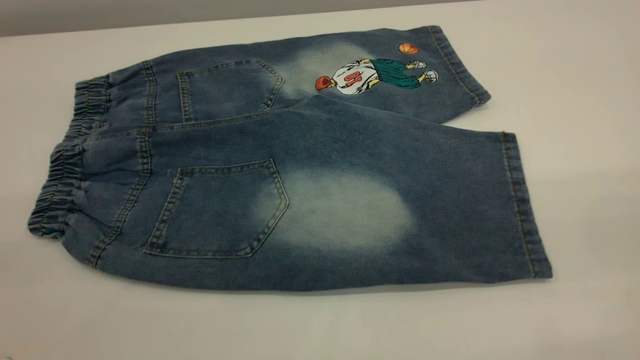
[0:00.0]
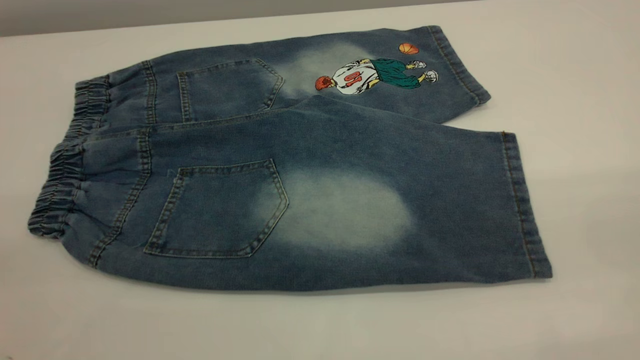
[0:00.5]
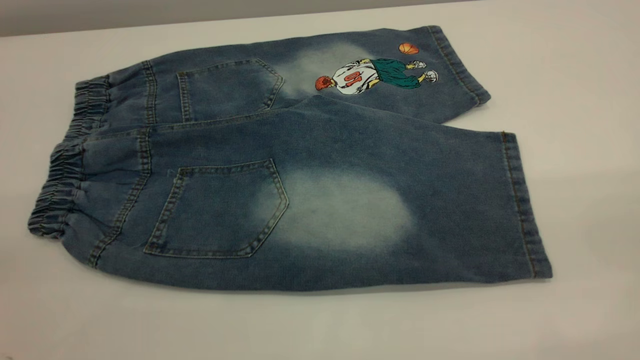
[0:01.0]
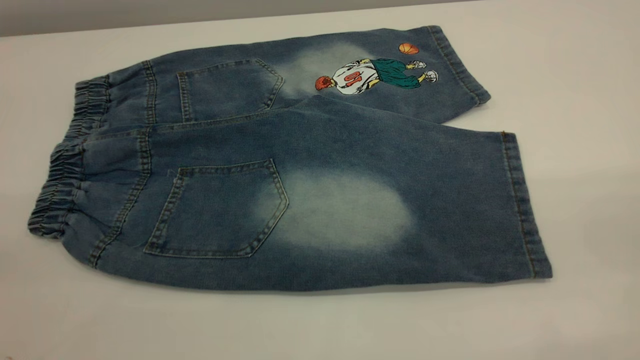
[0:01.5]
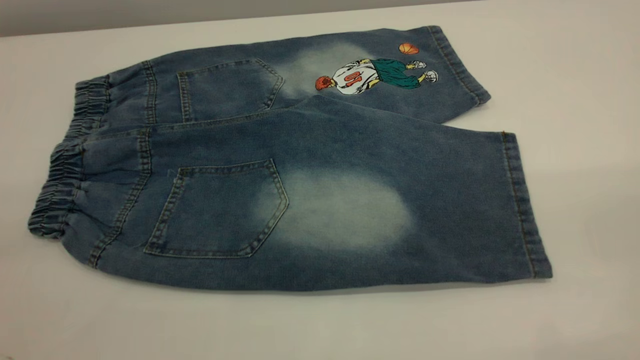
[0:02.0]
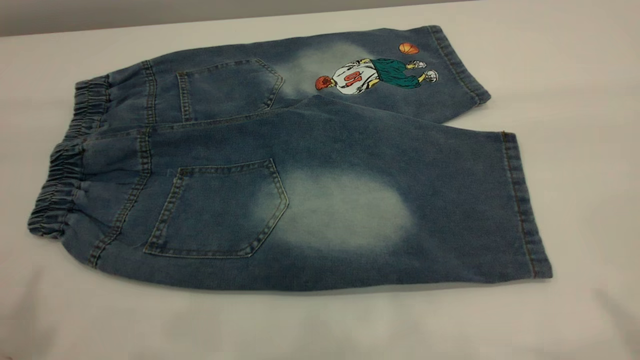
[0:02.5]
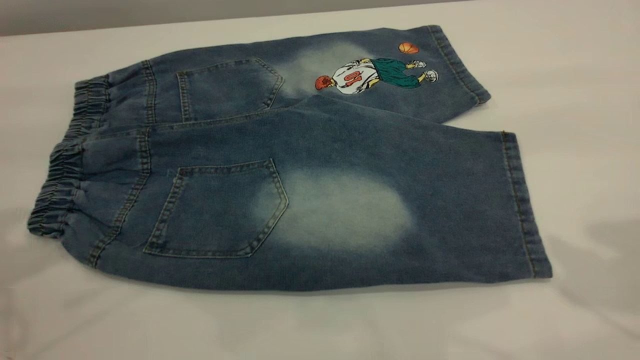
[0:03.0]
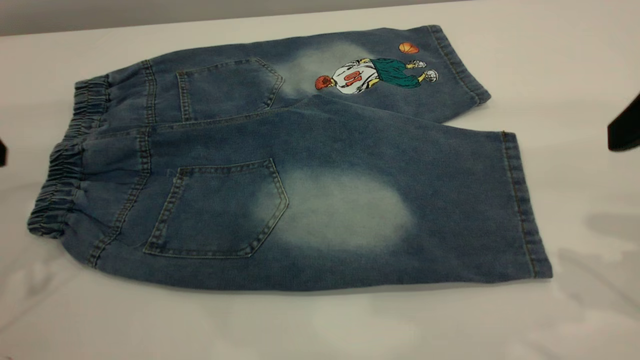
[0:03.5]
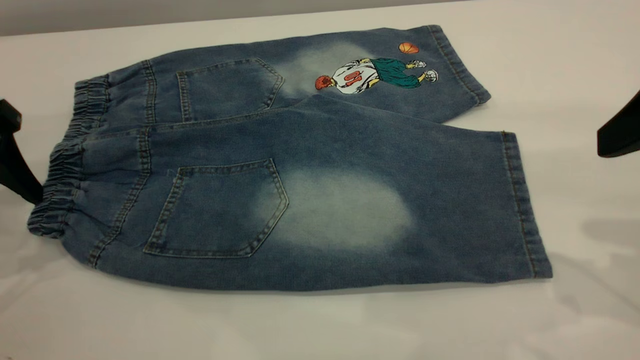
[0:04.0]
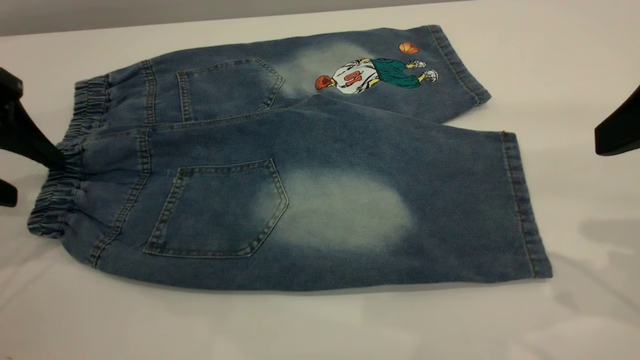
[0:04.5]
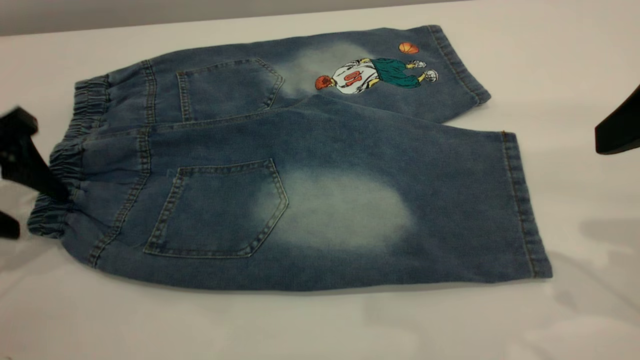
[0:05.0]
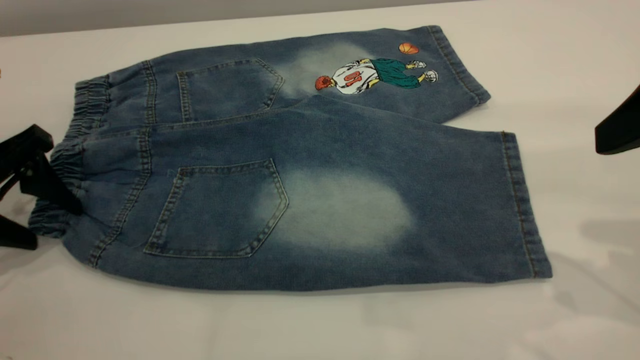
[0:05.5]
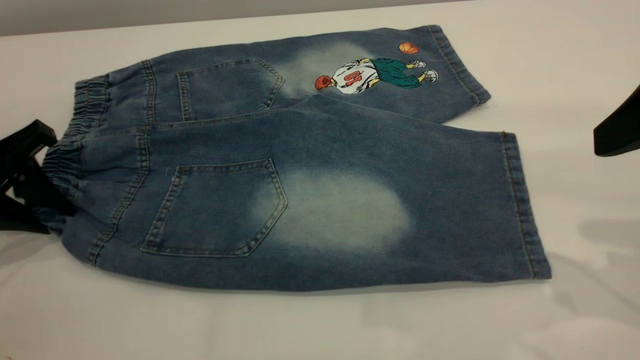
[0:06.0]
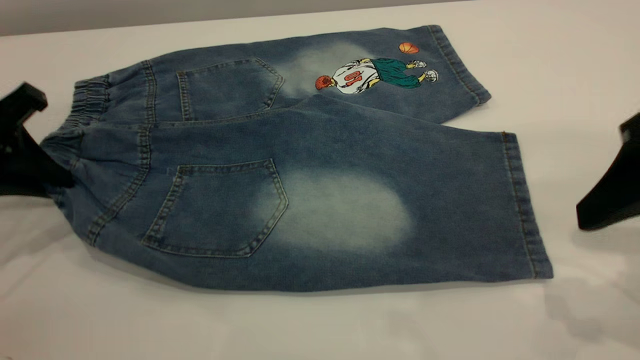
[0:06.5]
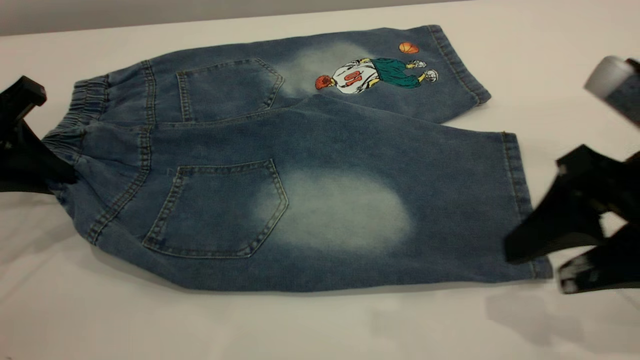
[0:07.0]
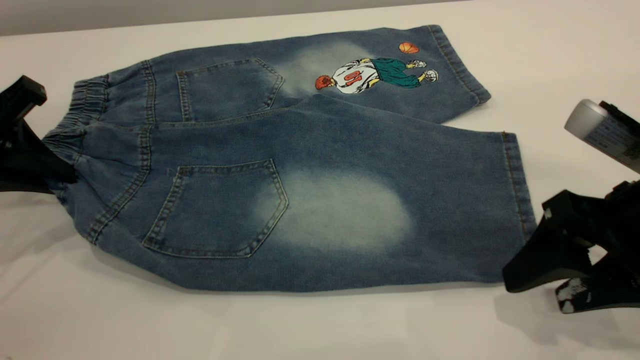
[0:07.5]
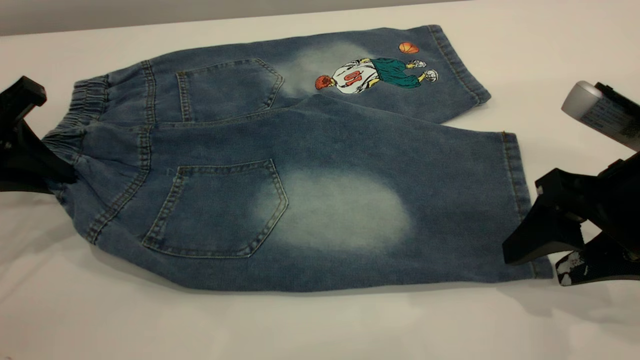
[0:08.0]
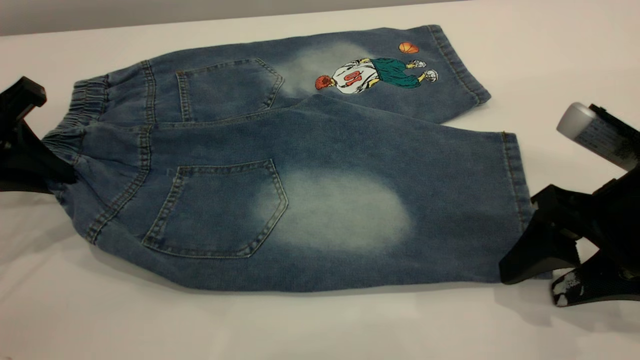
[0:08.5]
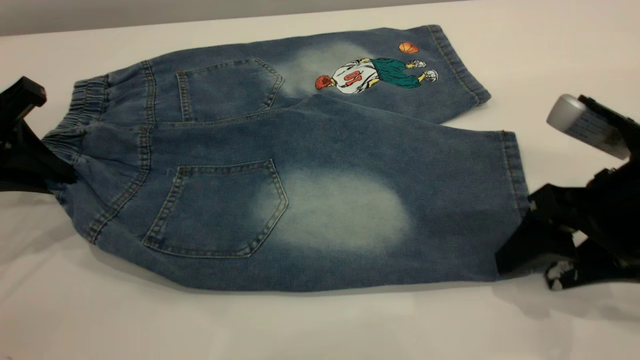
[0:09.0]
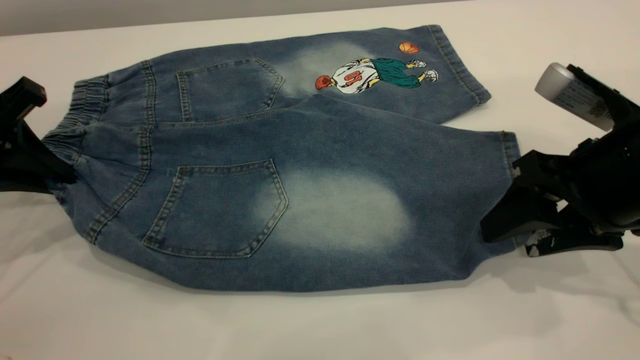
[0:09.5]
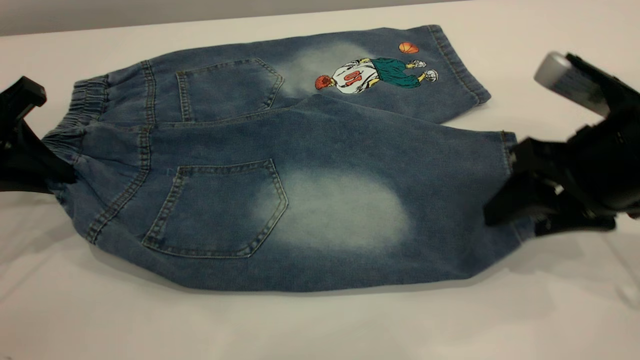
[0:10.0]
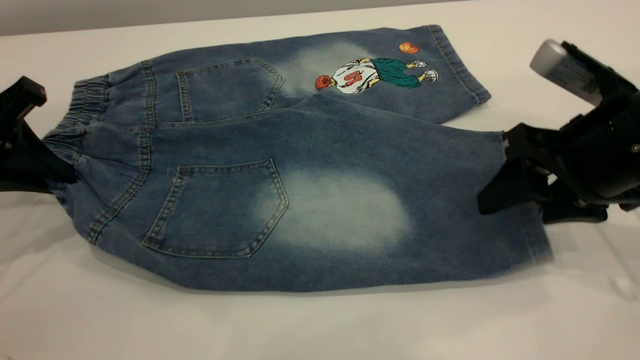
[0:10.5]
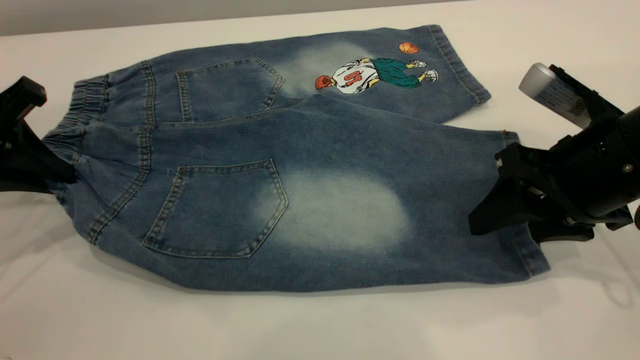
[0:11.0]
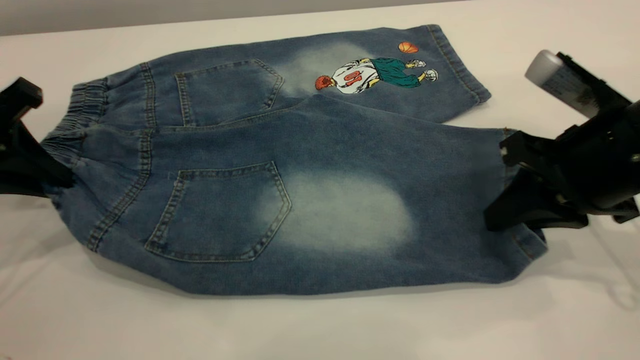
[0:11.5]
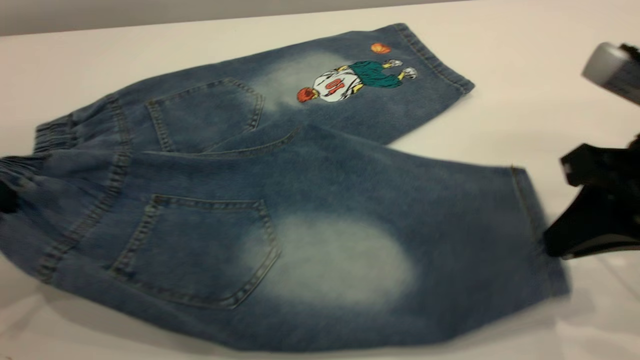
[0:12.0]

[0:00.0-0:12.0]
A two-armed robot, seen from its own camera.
0:02.0 to 0:04.0: Both grippers travel together forward and downward, approximately 30 cm.
0:04.0 to 0:06.0: The left gripper shifts some 5 cm downward, and closes its fingers.
0:06.0 to 0:08.0: The right gripper moves downward, some 10 cm.
0:08.0 to 0:10.0: The grippers move only a little.
0:10.0 to 0:12.0: The right gripper is displaced backward by roughly 5 cm, and closes up. The left gripper is displaced upward and backward by roughly 5 cm.

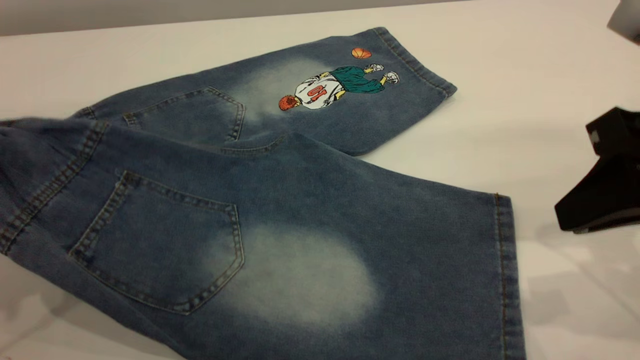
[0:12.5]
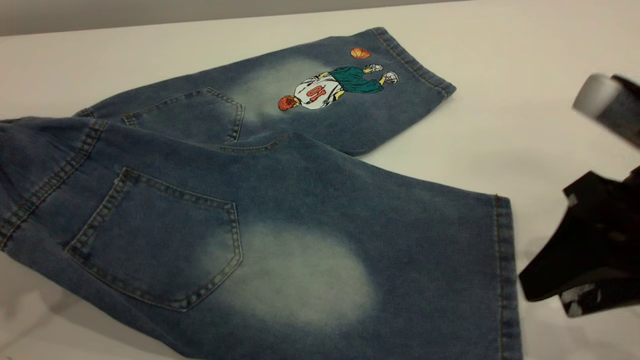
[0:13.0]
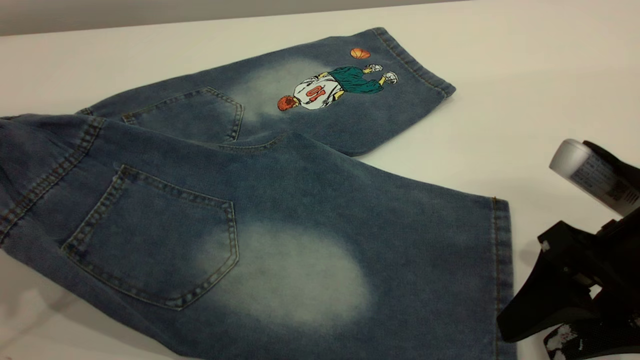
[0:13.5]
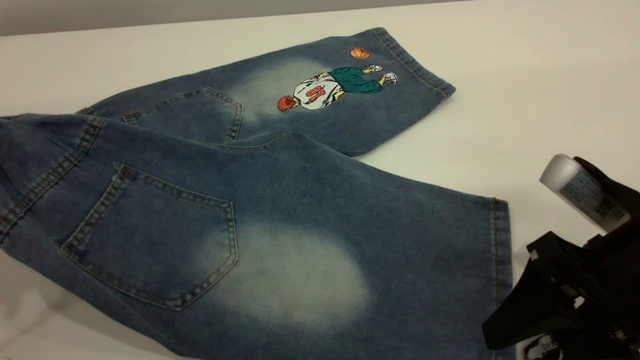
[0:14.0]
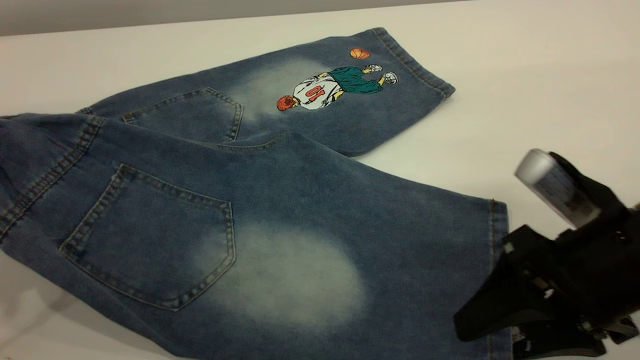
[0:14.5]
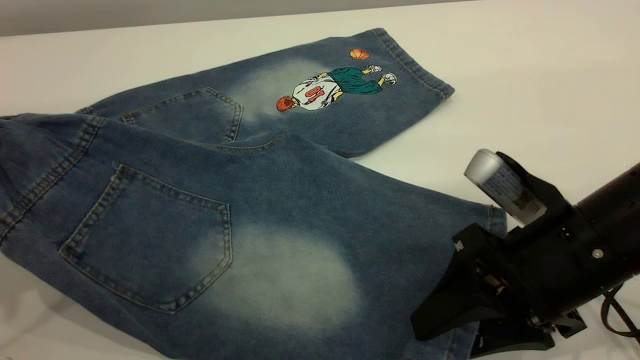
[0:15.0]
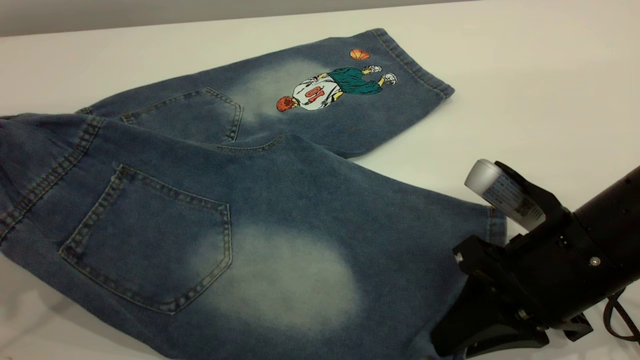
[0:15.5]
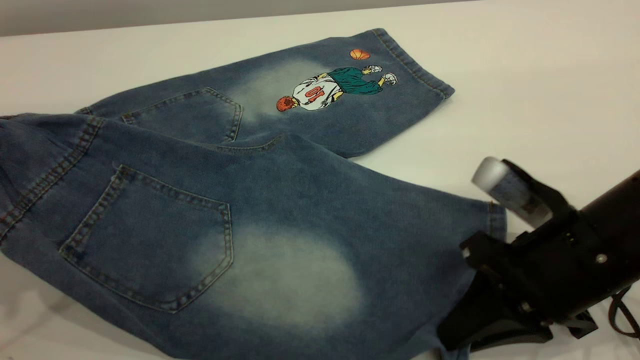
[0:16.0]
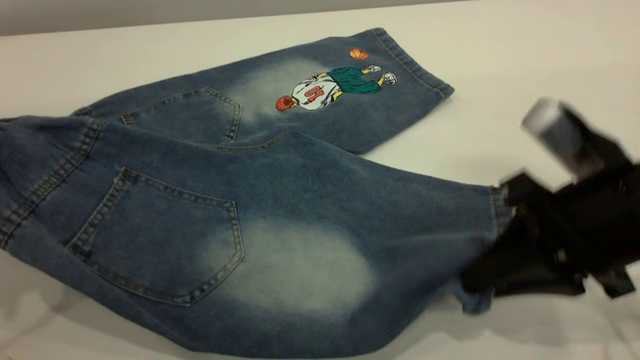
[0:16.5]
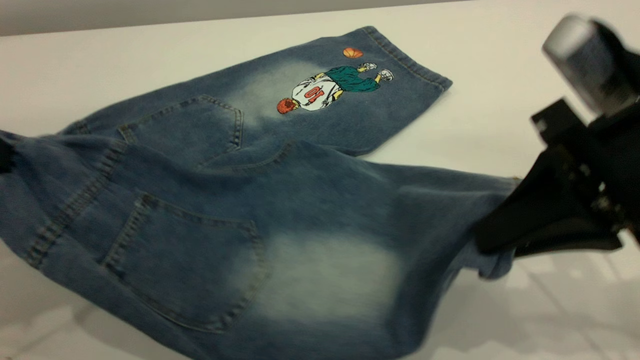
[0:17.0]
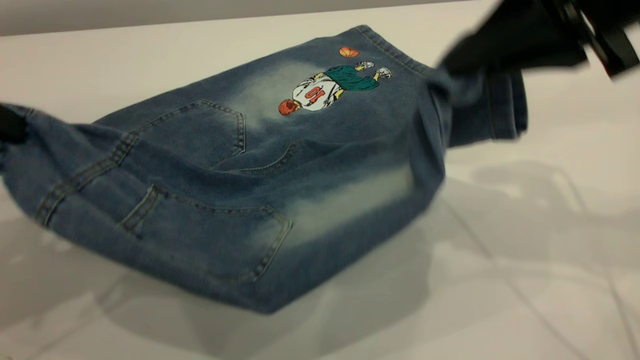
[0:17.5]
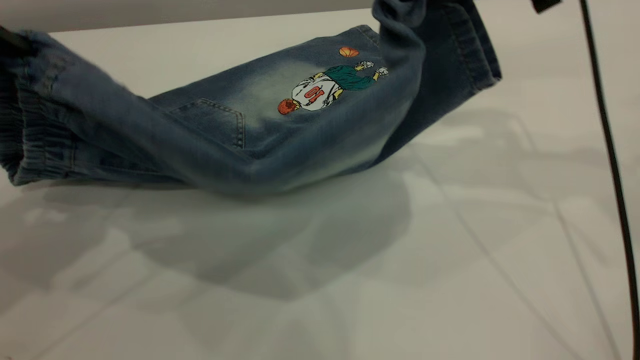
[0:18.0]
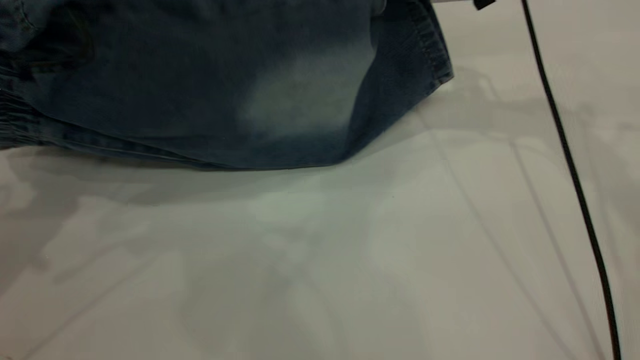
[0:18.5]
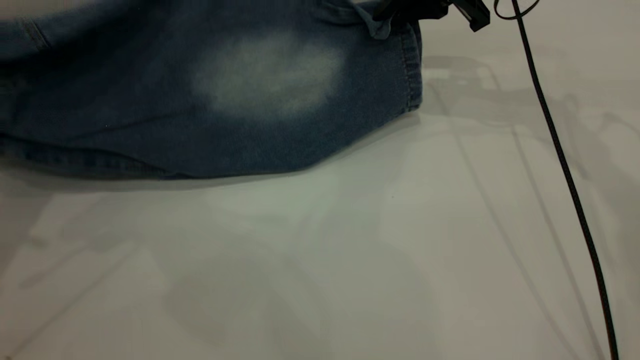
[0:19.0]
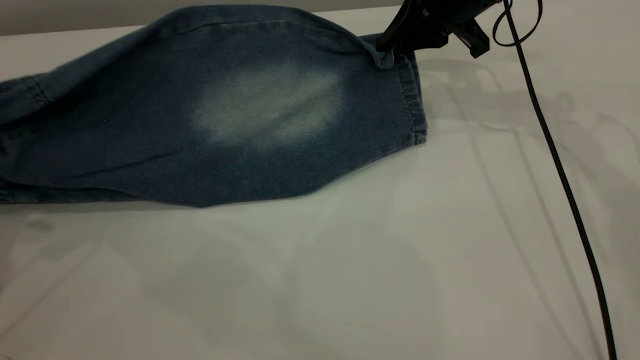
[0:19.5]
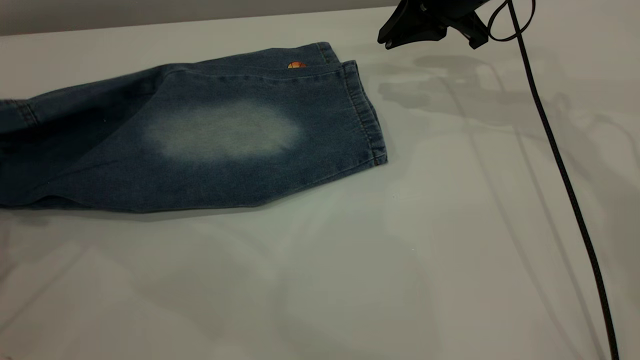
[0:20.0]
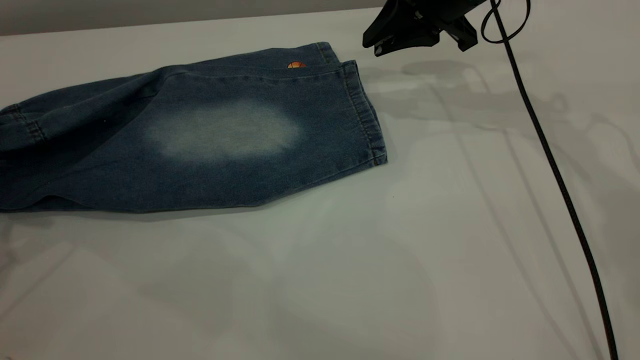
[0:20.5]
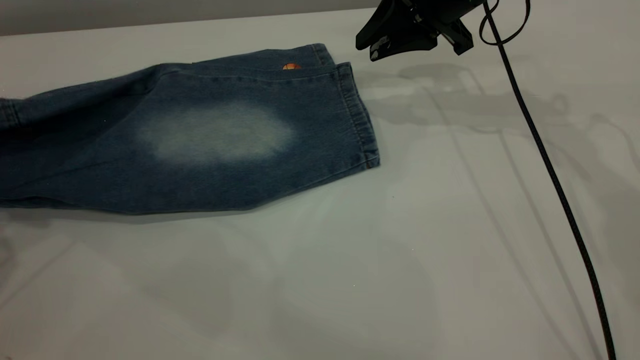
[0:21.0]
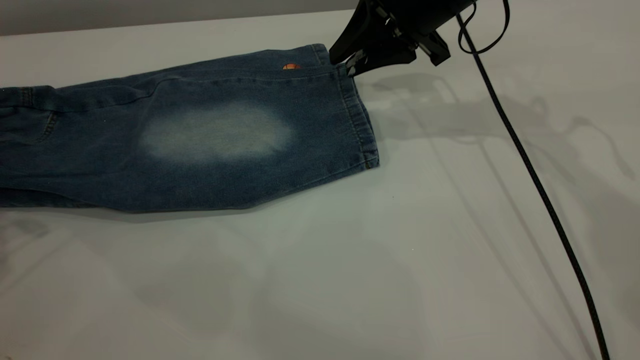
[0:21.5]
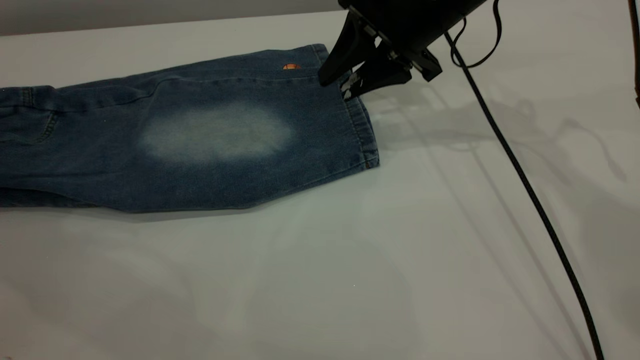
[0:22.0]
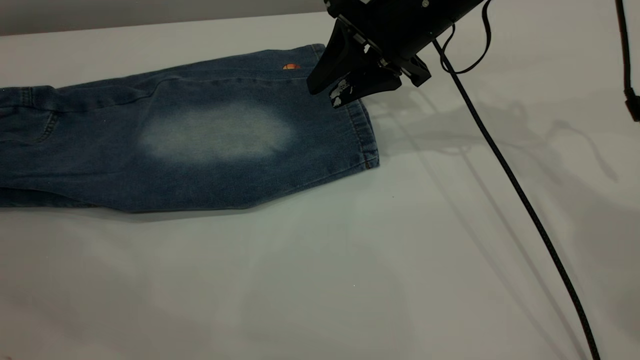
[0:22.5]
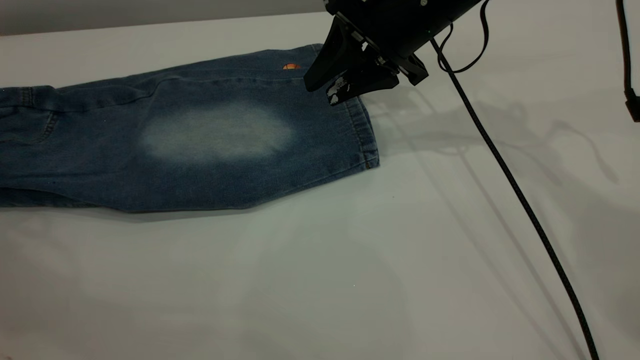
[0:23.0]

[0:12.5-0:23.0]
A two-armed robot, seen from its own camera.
Step, 0:12.5 to 0:21.5: Fold the bottom of the pants upward.
0:12.5 to 0:14.5: The right gripper travels downward by approximately 10 cm, and opens up.
0:14.5 to 0:16.5: The right gripper closes up.
0:16.5 to 0:19.0: The right gripper travels forward by about 25 cm.
0:19.0 to 0:21.0: The left gripper travels downward by approximately 5 cm.
0:21.0 to 0:23.0: The left gripper is displaced to the left by roughly 15 cm, and opens up; the right gripper ends up some 5 cm from where it was.
